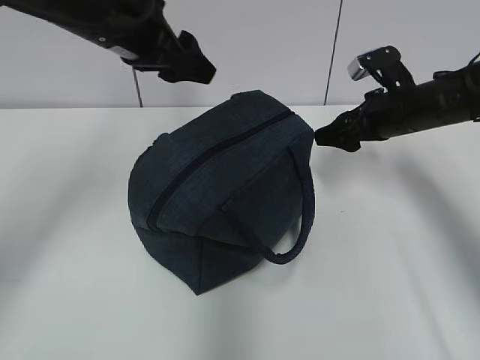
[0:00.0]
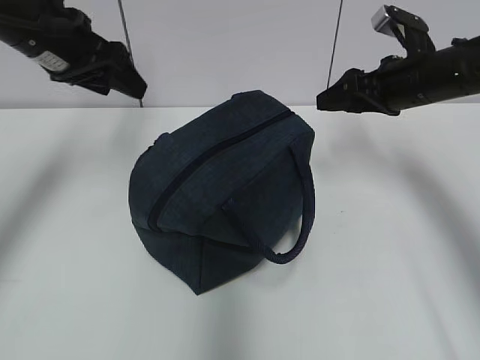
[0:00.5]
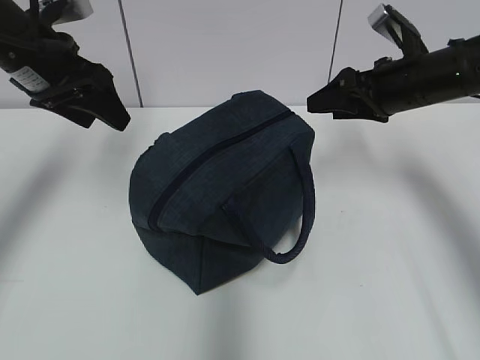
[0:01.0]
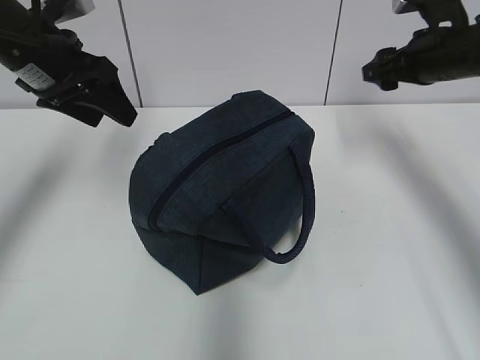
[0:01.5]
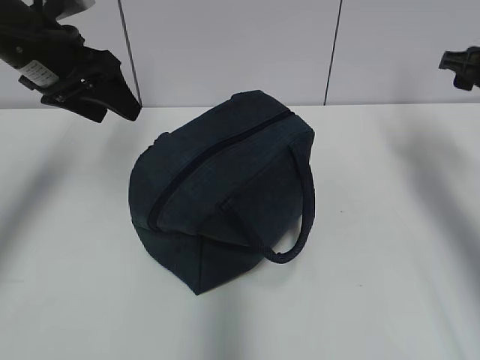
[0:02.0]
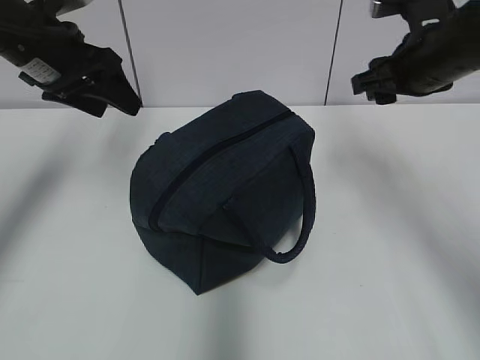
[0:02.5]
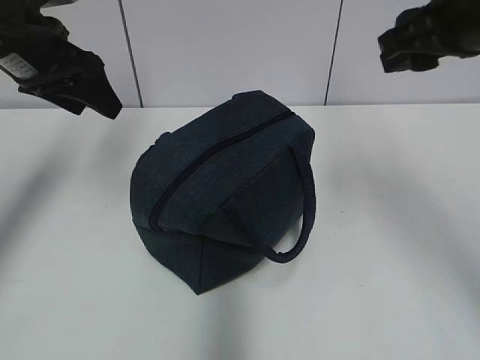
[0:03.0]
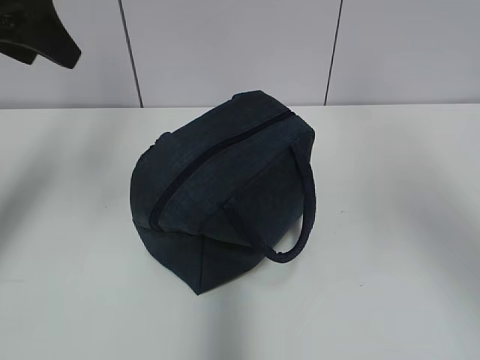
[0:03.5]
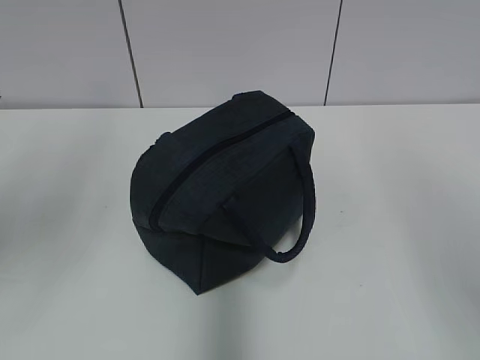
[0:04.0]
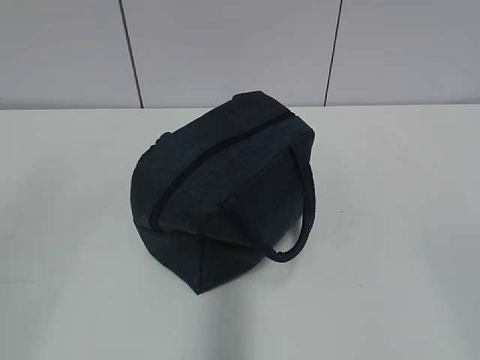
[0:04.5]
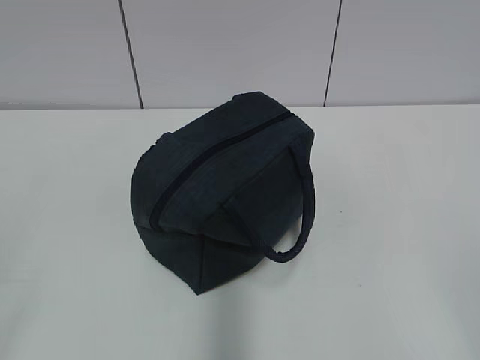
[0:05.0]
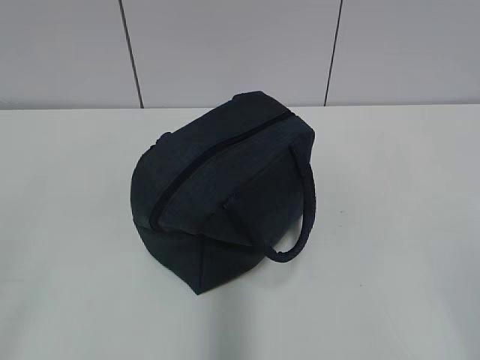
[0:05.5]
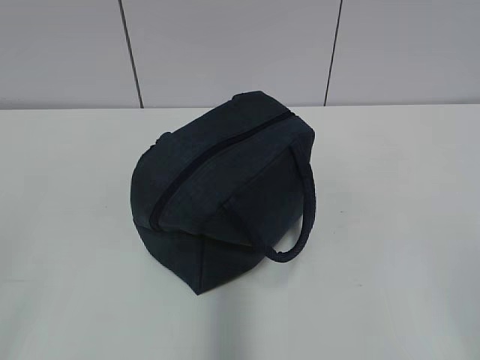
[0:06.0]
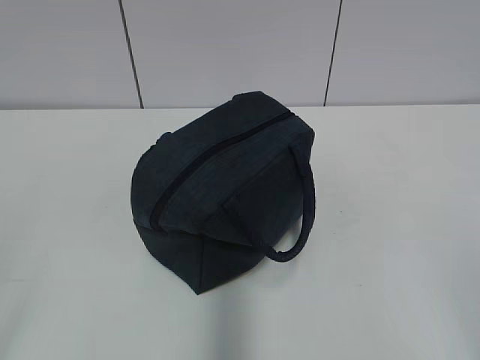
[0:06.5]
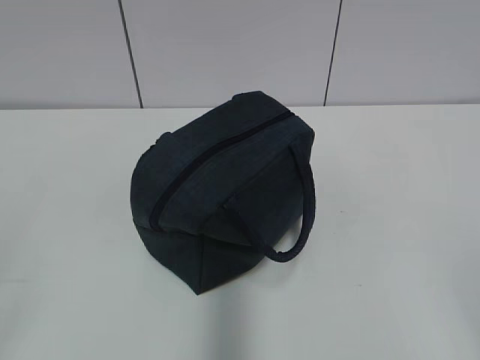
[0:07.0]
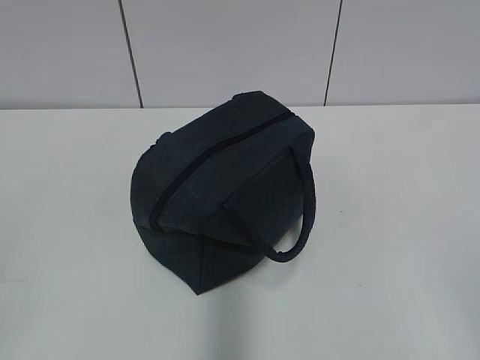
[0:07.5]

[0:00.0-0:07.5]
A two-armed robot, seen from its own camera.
0:00.0 to 0:02.0: The left gripper travels to the left by about 10 cm; the right gripper moves to the right and upward, approximately 10 cm.
0:02.0 to 0:04.0: The left gripper moves backward and upward, some 20 cm; the right gripper moves backward and upward, approximately 35 cm.
0:04.0 to 0:05.5: The left gripper heads backward and downward, covering approximately 25 cm.
